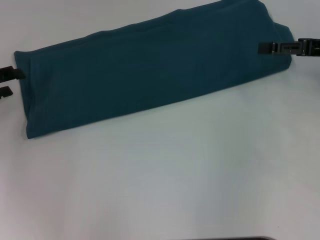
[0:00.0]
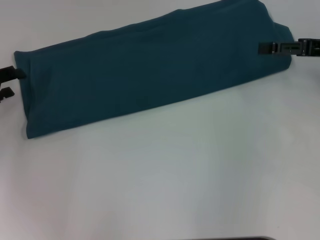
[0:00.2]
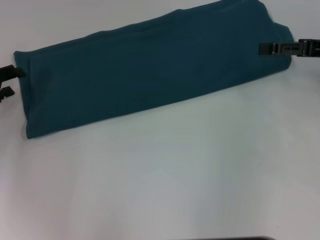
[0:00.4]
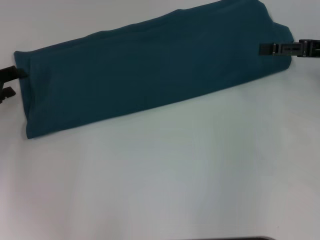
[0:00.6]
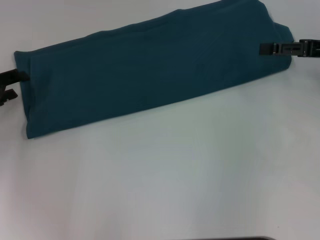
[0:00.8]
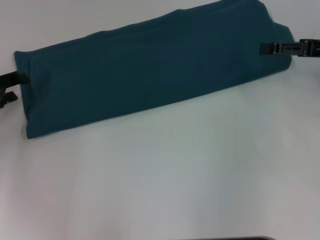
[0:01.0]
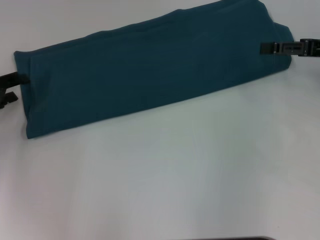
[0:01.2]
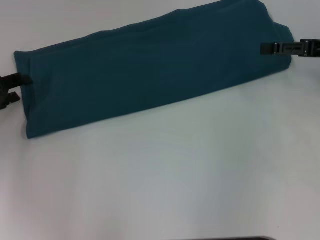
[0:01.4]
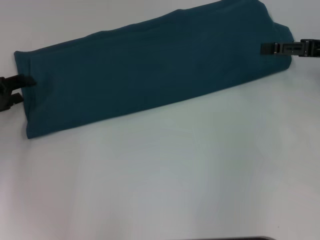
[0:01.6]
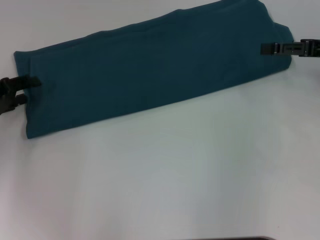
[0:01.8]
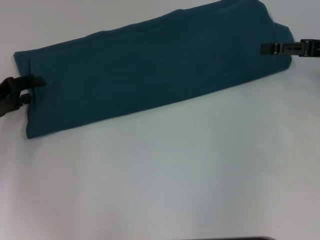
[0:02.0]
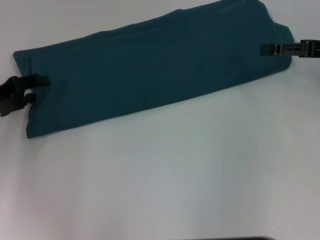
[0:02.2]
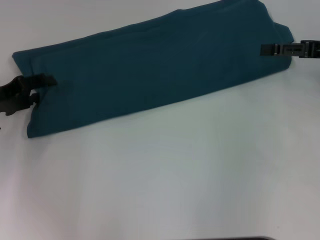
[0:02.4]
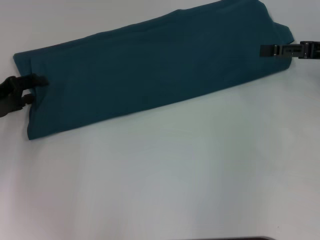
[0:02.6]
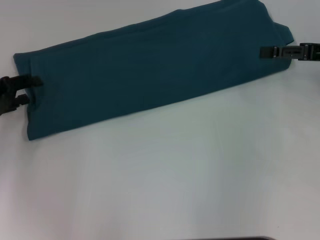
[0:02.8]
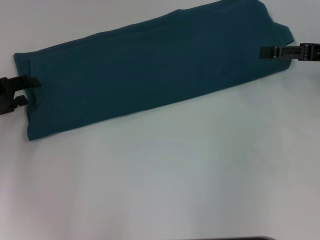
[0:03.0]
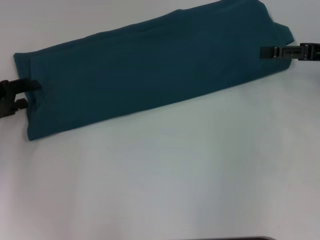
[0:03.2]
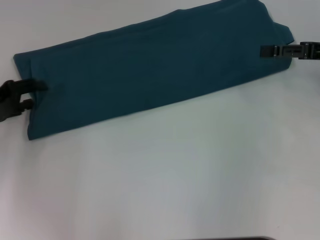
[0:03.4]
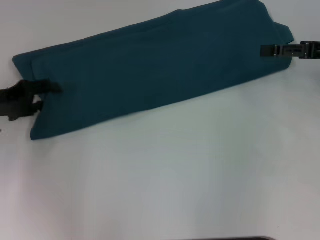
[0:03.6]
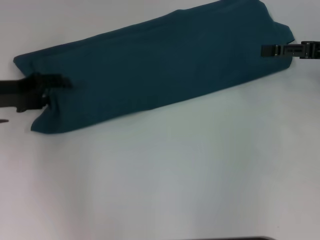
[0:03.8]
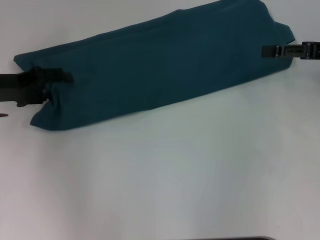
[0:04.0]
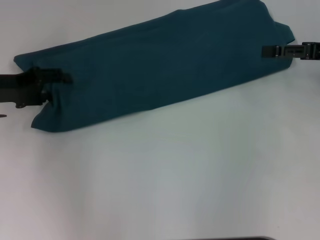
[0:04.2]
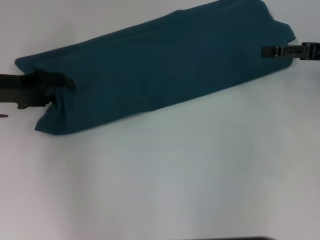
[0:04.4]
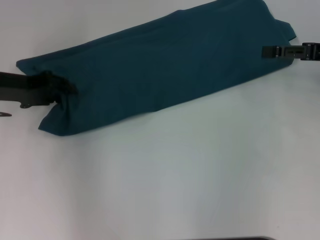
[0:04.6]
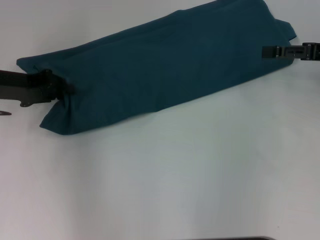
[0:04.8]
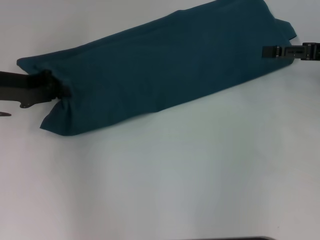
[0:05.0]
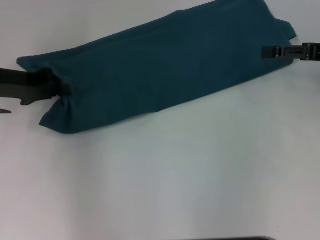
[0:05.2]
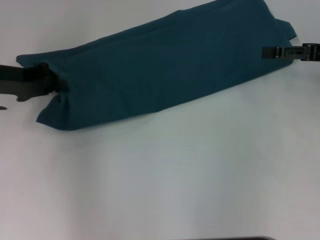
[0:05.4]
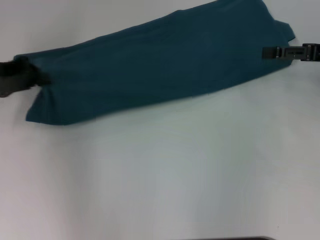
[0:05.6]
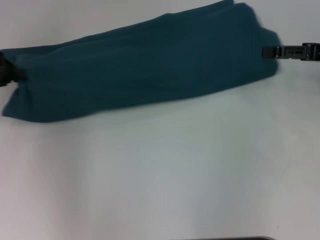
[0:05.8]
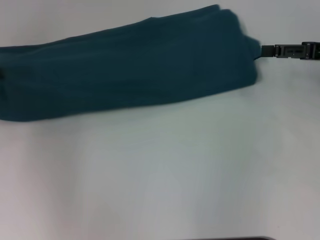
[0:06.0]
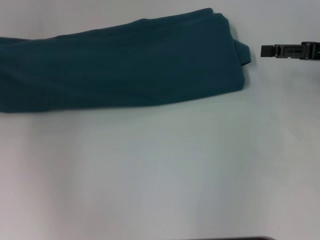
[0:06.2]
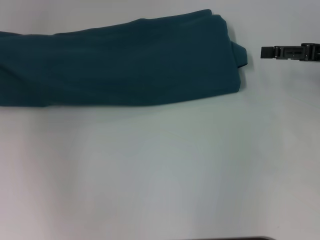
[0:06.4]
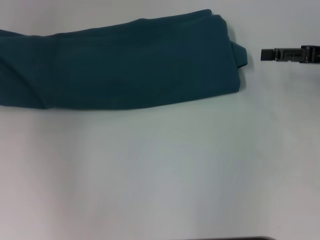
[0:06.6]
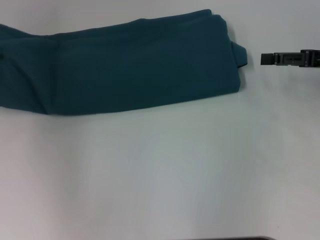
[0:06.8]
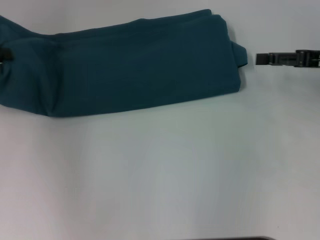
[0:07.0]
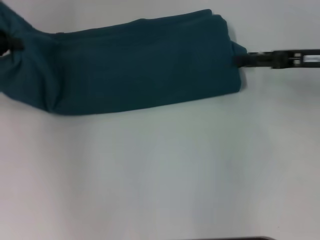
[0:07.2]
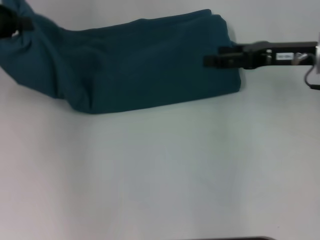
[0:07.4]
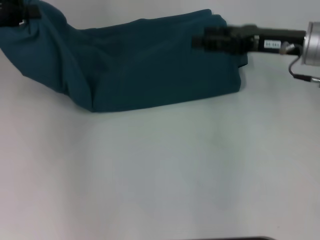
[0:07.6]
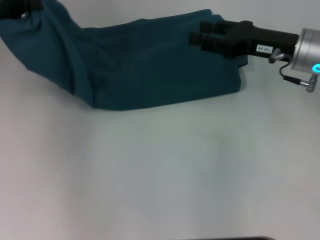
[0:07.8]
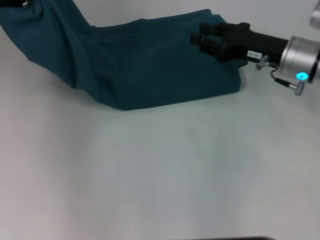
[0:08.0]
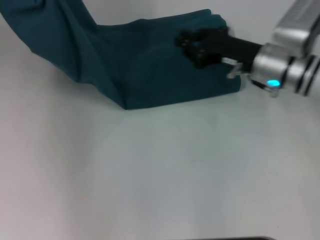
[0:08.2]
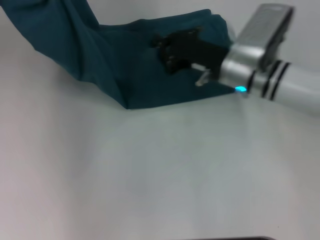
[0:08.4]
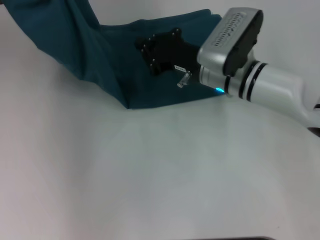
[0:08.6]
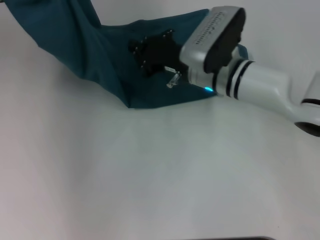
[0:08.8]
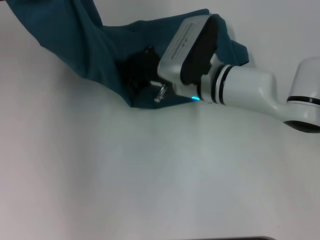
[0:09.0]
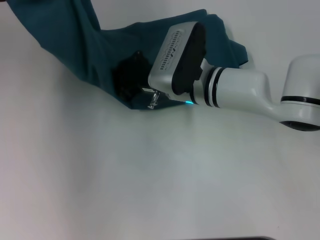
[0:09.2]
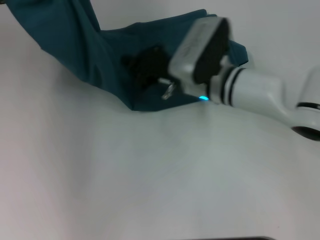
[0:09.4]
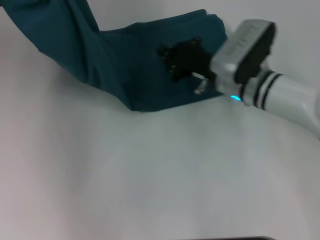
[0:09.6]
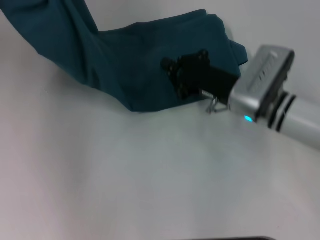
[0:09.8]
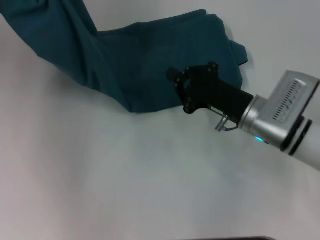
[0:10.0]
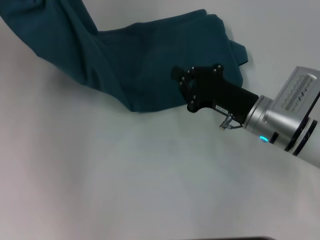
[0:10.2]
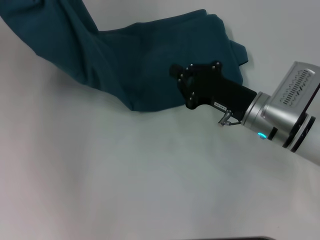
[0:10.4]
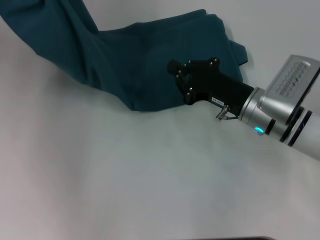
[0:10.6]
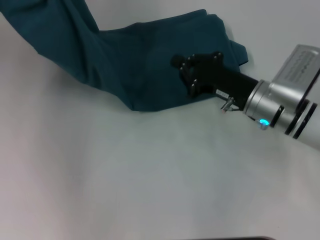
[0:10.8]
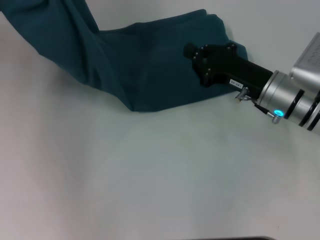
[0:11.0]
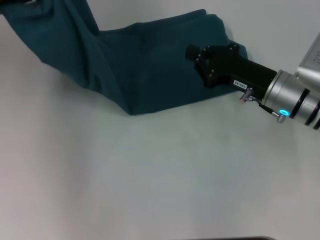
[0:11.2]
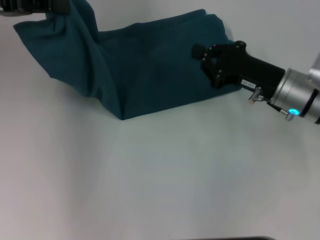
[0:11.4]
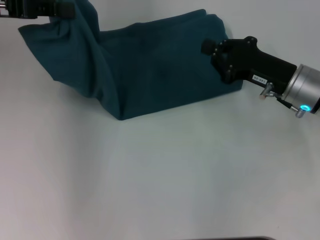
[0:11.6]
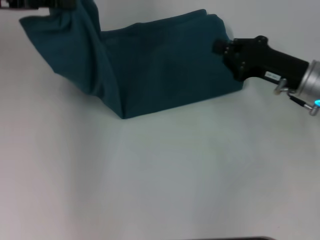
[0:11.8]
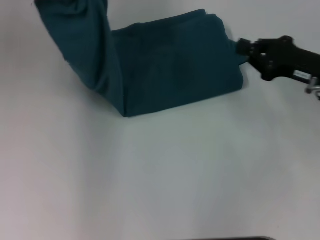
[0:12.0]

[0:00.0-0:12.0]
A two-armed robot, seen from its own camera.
Step, 0:00.0 to 0:09.4: Press the middle of the clothes with your right hand.
0:00.0 to 0:03.0: There are only small adjustments of the grippers.
0:03.0 to 0:04.4: The left gripper shifts by some 5 cm.
0:04.4 to 0:06.0: The left gripper heads to the left, covering some 10 cm, and closes.
0:06.0 to 0:07.6: The right gripper travels to the left by roughly 10 cm; the left gripper shifts some 5 cm upward.
0:07.6 to 0:09.0: The right gripper is displaced to the left and downward by some 20 cm, and closes its fingers.
0:09.0 to 0:10.4: The right gripper is displaced to the right and backward by roughly 10 cm.
0:10.4 to 0:12.0: The left gripper travels to the right by approximately 5 cm. Meanwhile the right gripper travels to the right and upward by about 15 cm.

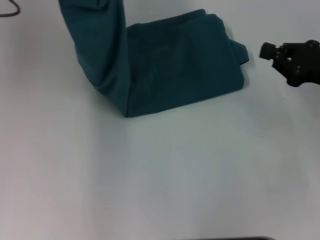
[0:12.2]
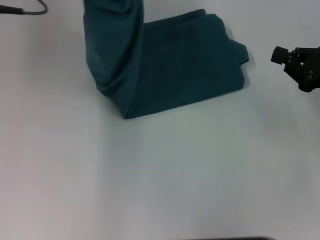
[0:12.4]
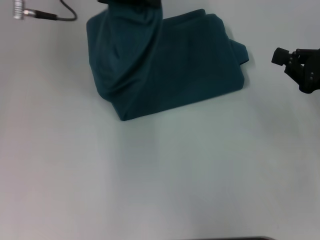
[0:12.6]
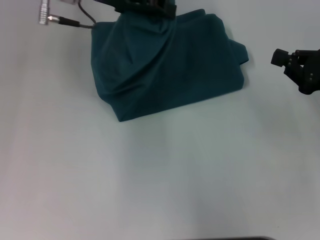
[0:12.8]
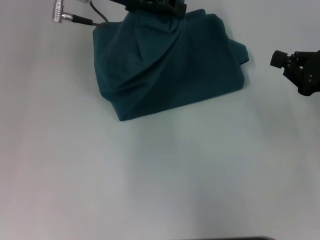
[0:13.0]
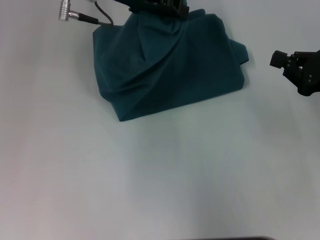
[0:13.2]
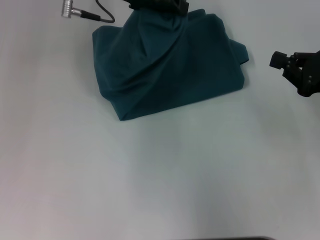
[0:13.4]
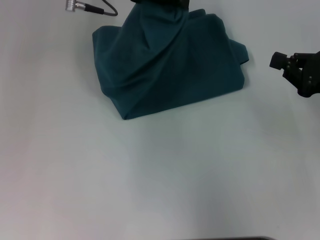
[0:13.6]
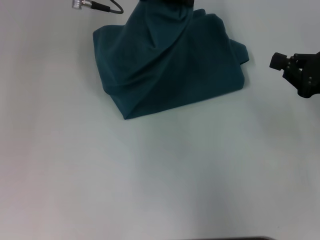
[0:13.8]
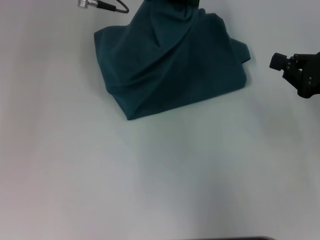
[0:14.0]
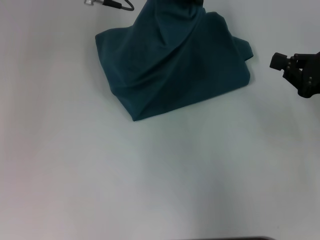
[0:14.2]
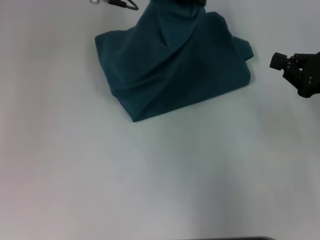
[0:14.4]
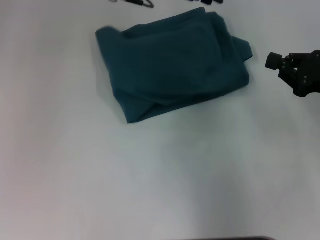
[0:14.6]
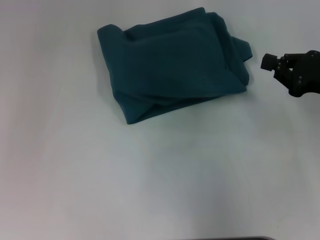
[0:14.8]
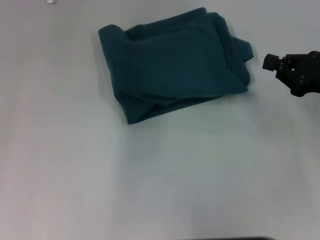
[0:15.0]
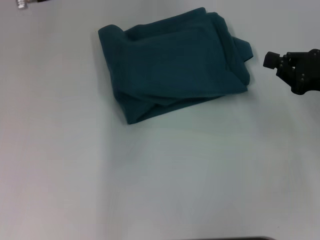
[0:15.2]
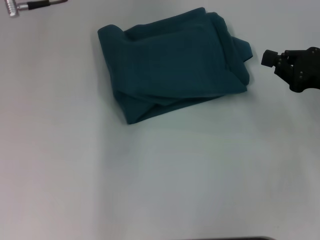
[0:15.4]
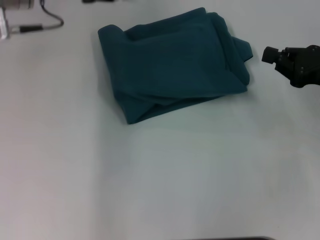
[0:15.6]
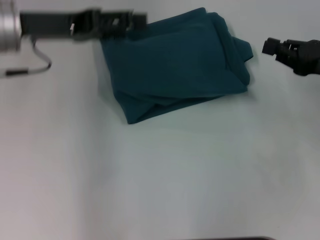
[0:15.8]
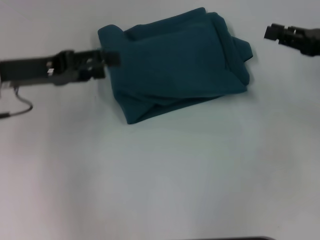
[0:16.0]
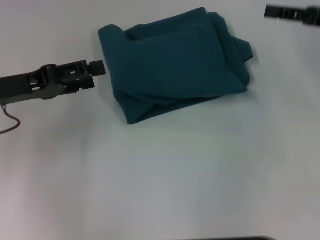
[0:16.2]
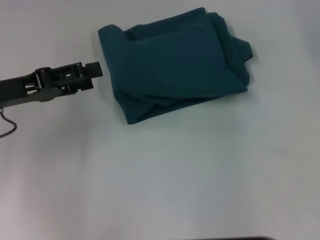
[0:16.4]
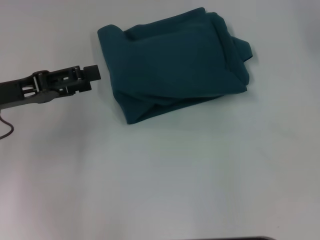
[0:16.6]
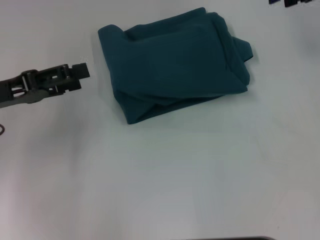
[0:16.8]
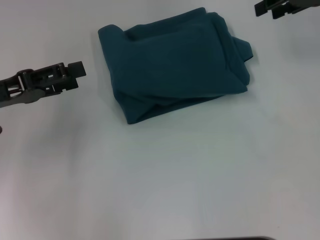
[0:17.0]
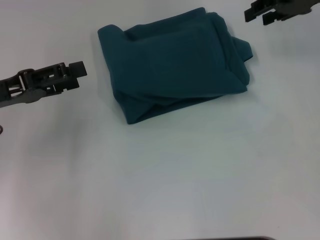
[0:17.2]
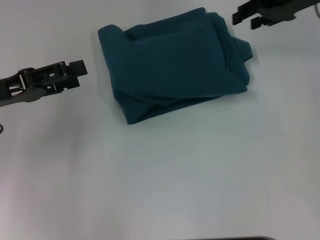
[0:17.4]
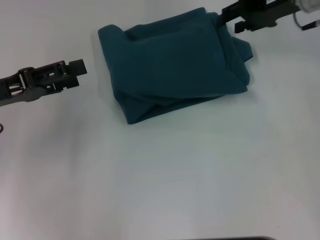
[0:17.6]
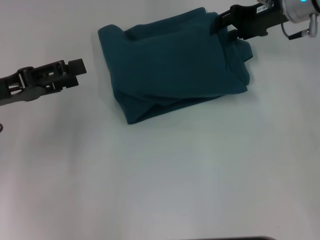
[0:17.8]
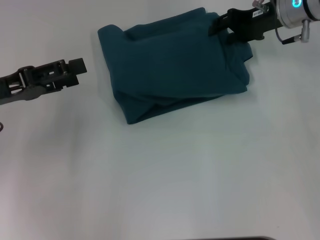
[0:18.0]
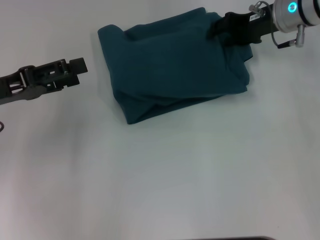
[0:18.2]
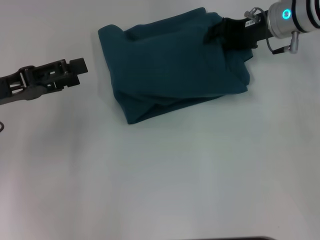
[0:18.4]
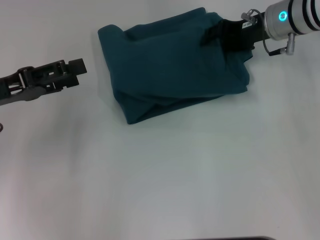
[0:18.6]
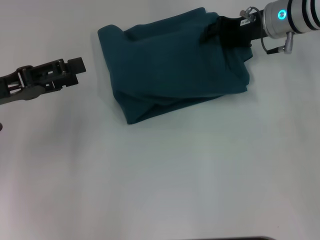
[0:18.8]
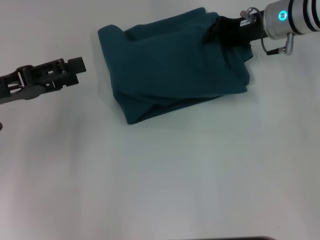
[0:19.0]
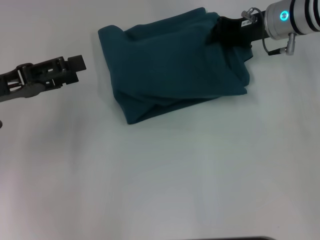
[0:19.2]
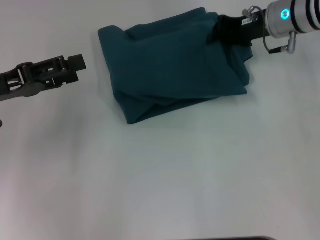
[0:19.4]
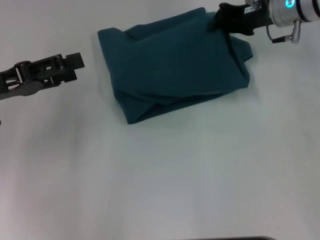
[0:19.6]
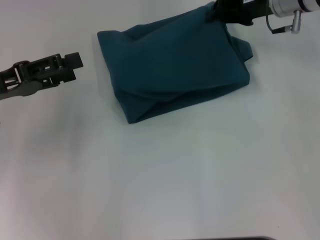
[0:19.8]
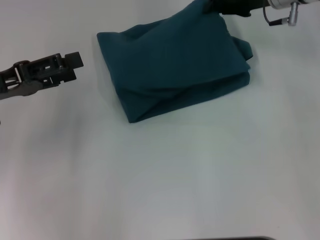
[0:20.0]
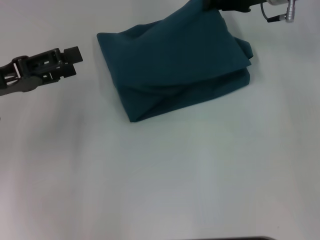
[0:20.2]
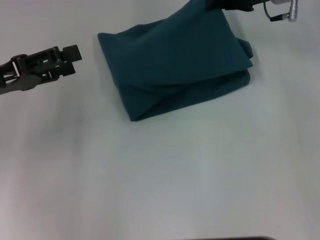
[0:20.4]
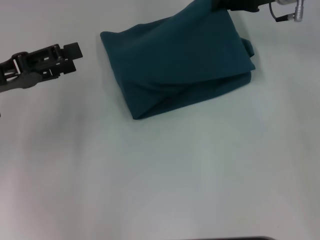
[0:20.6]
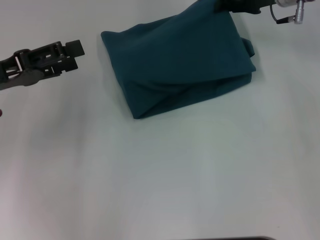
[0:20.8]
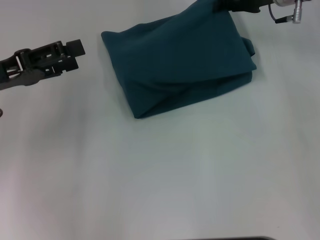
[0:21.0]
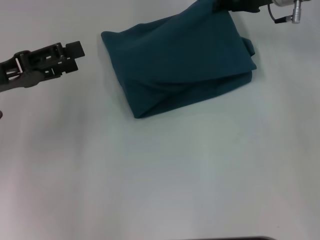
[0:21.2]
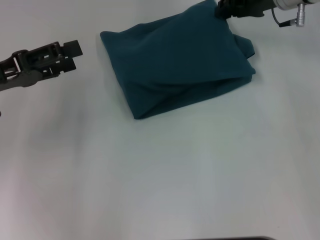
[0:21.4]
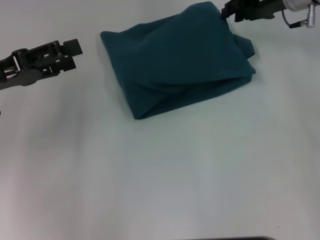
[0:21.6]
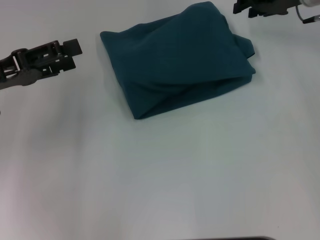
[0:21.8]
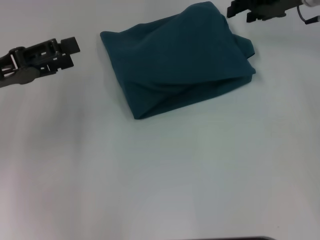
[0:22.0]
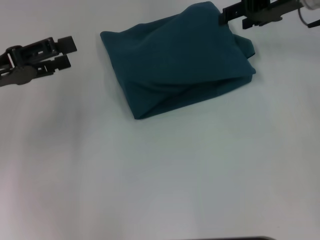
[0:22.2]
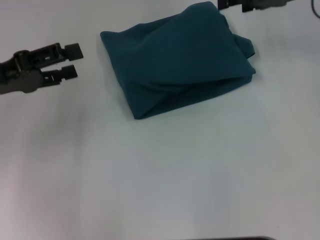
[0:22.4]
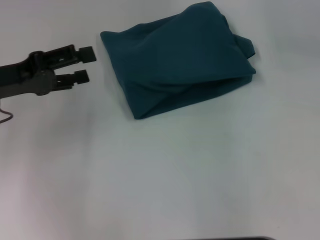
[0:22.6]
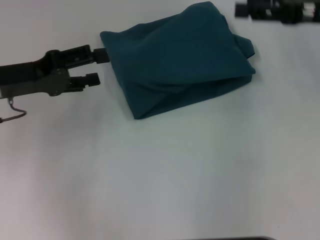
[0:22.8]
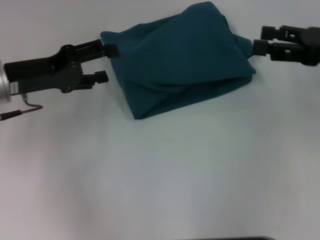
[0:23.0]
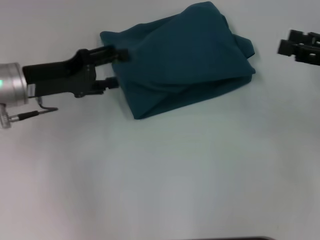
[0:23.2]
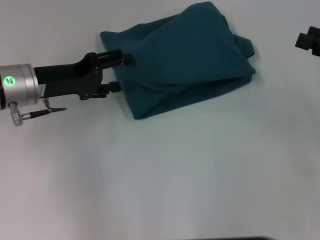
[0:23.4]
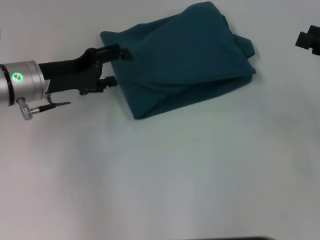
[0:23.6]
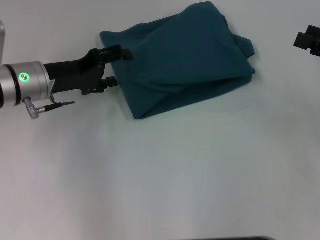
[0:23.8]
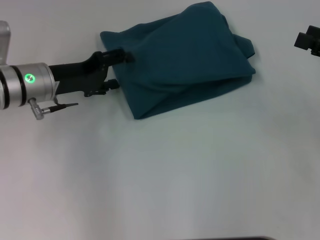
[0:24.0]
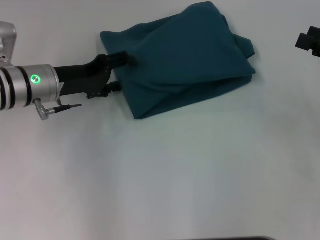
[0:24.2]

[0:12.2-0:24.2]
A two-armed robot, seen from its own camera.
Step, 0:12.2 to 0:15.0: Fold the clothes to the left.
0:12.2 to 0:13.8: The left gripper heads to the right, covering approximately 15 cm.
0:13.8 to 0:15.2: The left gripper goes about 10 cm to the left, and opens up.
0:15.2 to 0:16.6: The right gripper moves upward and forward, about 20 cm, and opens. Meanwhile the left gripper heads backward, downward and to the left, covering about 20 cm, and opens up.
0:16.6 to 0:18.2: The right gripper shifts some 15 cm to the left and downward.
0:18.2 to 0:19.8: The right gripper closes up.
0:19.8 to 0:21.2: The grippers make only small movements.
0:21.2 to 0:22.6: The right gripper moves backward and to the right, roughly 10 cm, and opens its fingers.
0:22.6 to 0:24.2: The left gripper is displaced to the right, downward and forward by roughly 10 cm; the right gripper heads backward, to the right and downward, covering some 15 cm.
